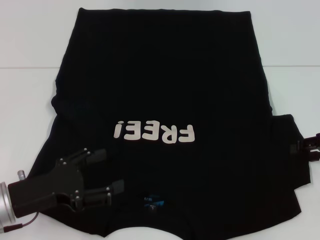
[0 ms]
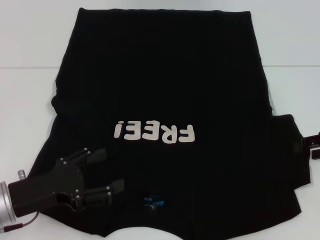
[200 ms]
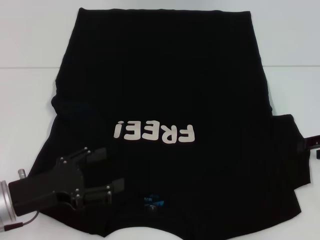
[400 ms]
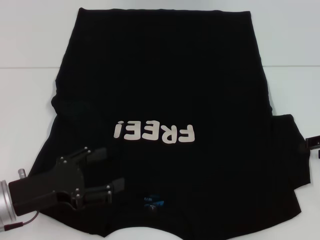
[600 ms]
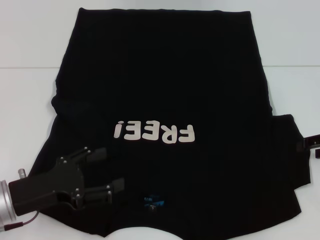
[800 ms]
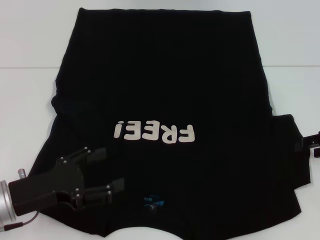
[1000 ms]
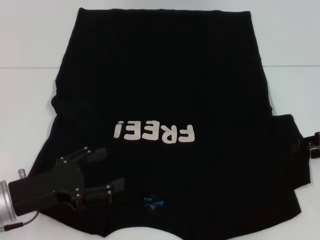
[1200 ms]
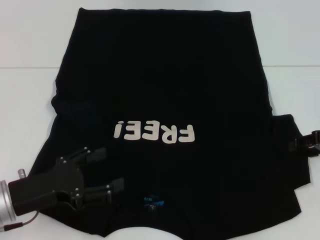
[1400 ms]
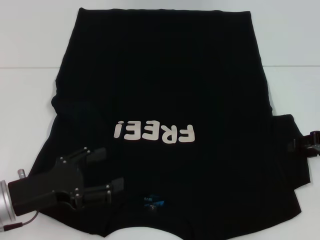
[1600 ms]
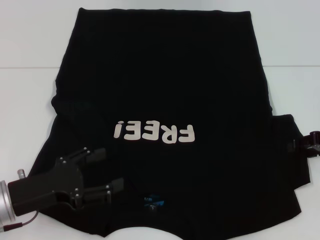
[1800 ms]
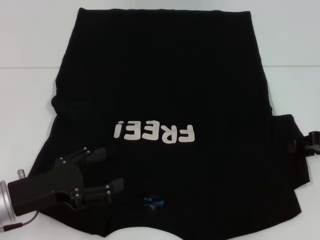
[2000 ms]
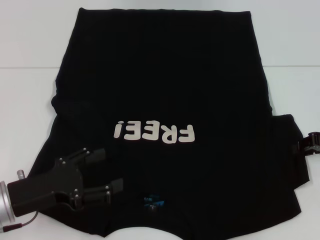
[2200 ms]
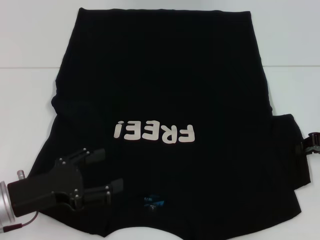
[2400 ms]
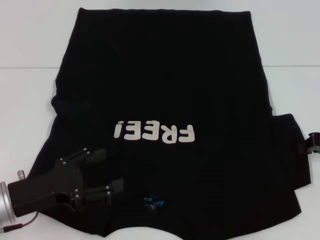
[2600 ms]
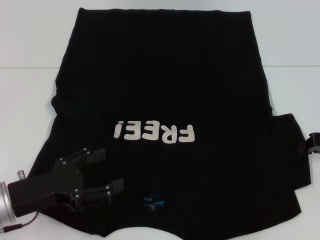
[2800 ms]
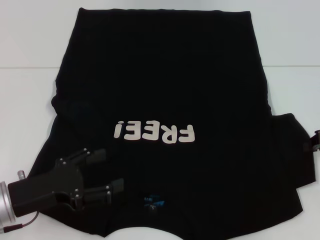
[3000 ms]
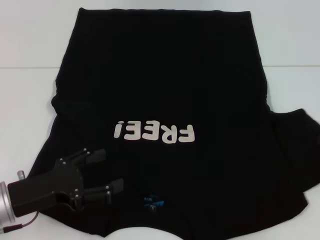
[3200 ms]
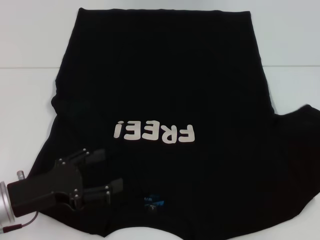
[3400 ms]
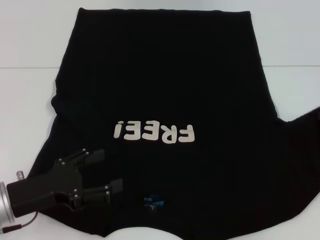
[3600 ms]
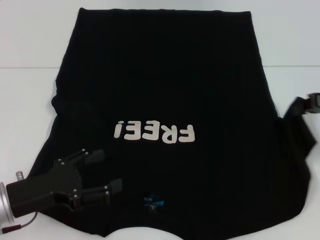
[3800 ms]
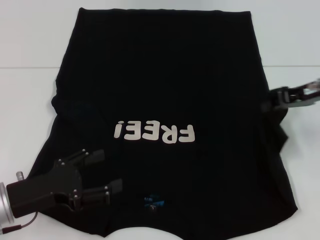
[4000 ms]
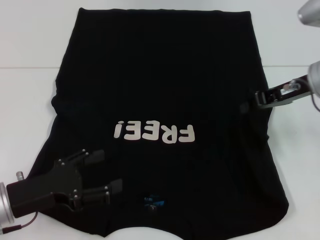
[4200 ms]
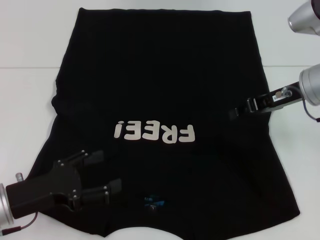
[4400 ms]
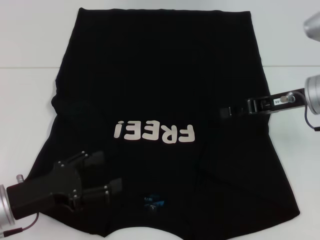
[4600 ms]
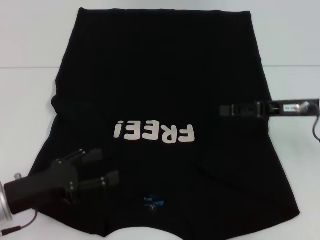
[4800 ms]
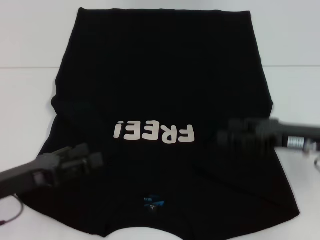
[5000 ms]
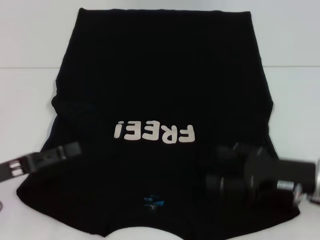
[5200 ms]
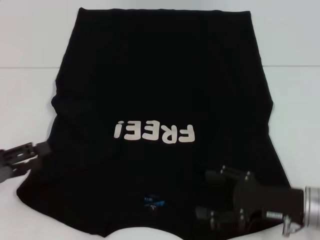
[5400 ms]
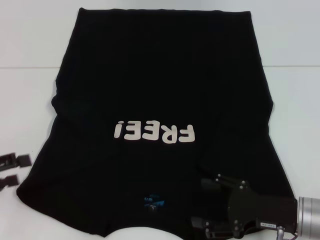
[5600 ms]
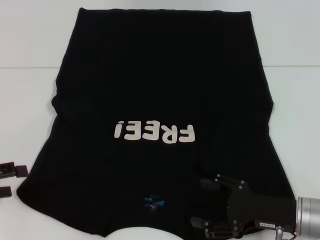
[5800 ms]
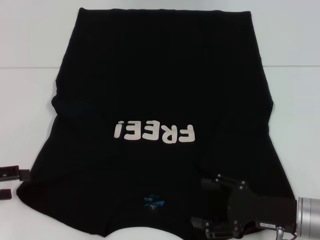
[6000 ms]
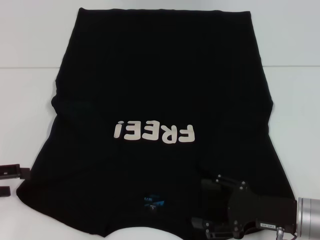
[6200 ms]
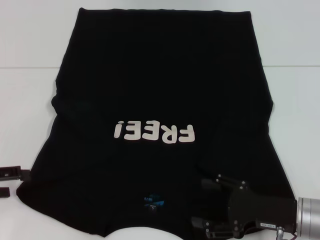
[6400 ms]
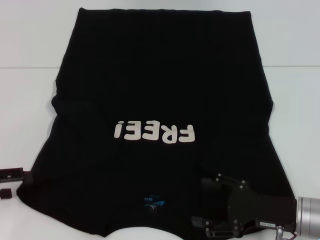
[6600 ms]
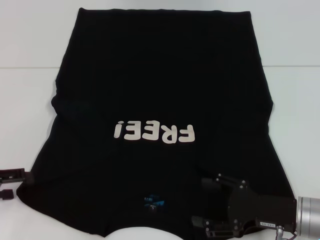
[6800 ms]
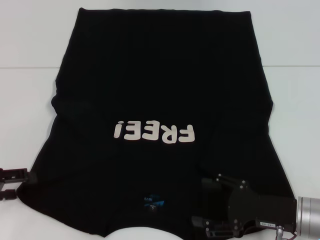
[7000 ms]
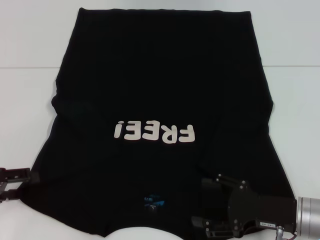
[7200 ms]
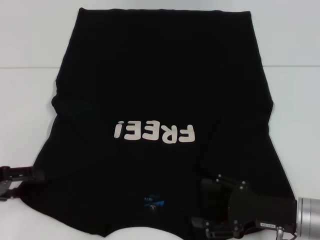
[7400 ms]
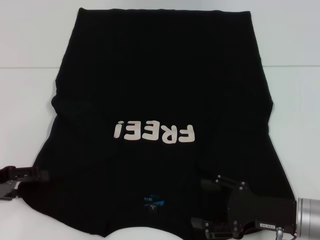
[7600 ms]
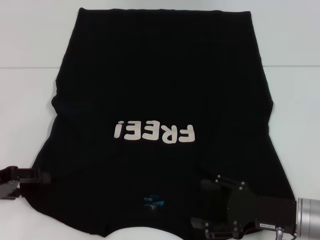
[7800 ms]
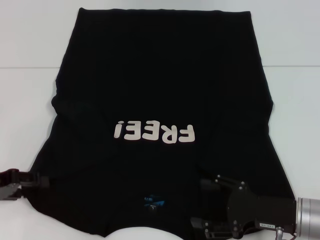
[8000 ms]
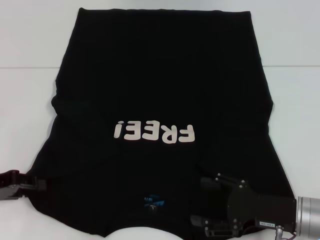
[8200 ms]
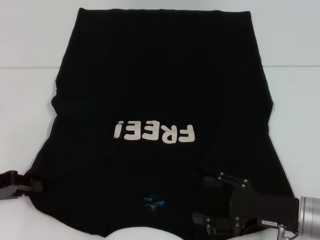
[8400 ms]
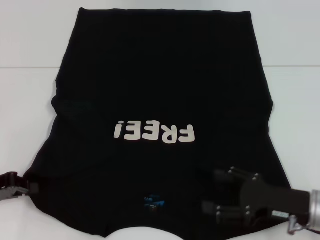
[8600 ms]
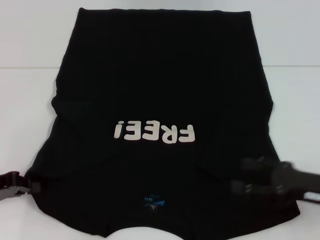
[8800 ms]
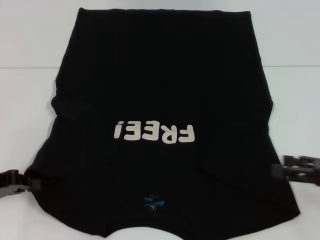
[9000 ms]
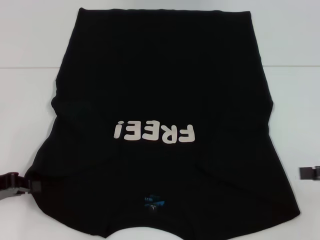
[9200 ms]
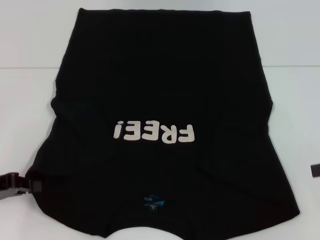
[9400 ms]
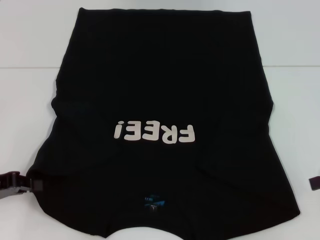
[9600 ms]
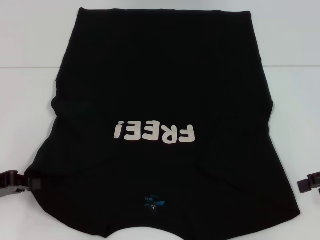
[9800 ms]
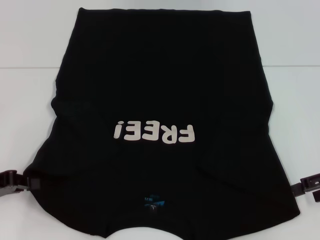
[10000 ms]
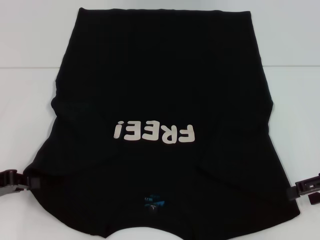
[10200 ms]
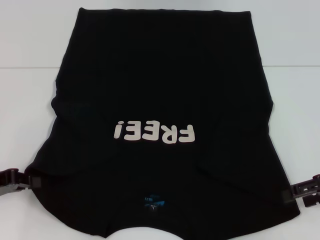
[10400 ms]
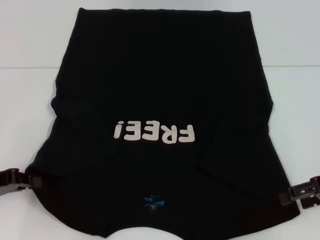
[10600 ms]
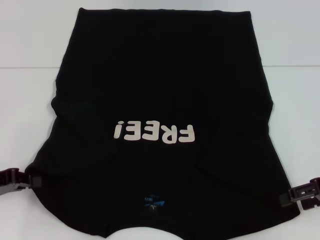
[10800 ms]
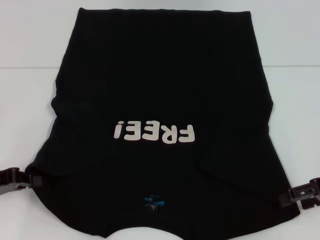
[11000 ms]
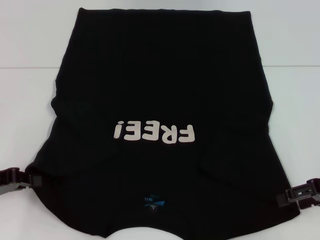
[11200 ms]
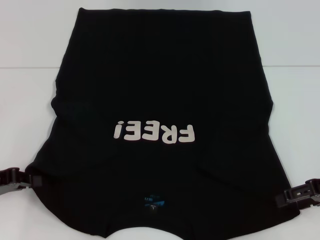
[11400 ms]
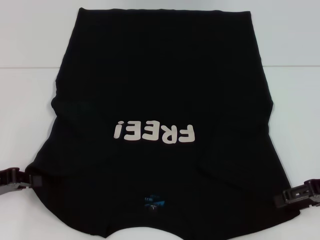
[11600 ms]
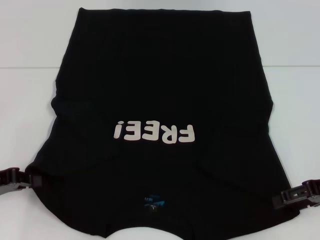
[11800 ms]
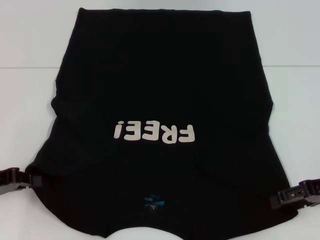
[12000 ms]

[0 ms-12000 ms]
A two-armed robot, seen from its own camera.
Step, 0 ms to 4800 ms: Fold the bottom right sleeve with your right hand.
0 ms to 1600 ms: The grippers make only small movements.
1600 ms to 3000 ms: The right gripper closes.
3000 ms to 4400 ms: The right gripper shifts roughly 10 cm to the left.
4400 ms to 6000 ms: The right gripper is displaced backward and downward by roughly 20 cm, and opens up; the left gripper goes about 10 cm to the left.
6000 ms to 7600 ms: The grippers make only small movements.
7600 ms to 9000 ms: The right gripper goes approximately 15 cm to the right and upward. The left gripper closes up.
9000 ms to 10400 ms: The right gripper moves forward, some 5 cm.
10400 ms to 12000 ms: The grippers make only small movements.

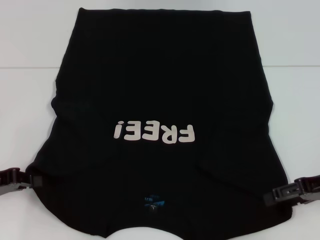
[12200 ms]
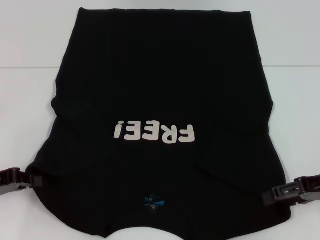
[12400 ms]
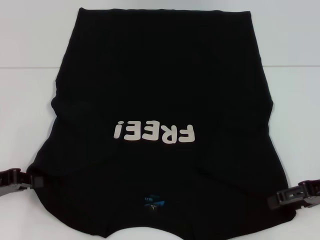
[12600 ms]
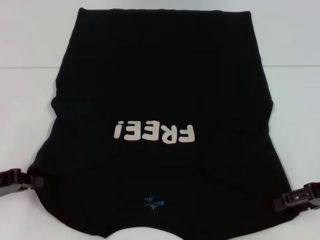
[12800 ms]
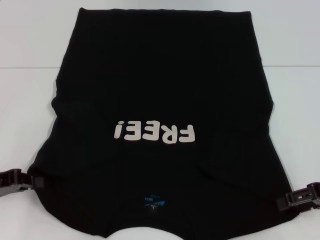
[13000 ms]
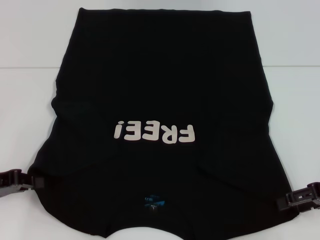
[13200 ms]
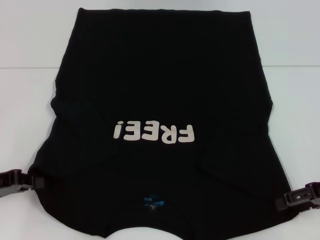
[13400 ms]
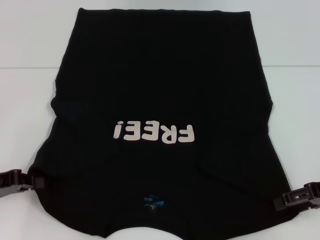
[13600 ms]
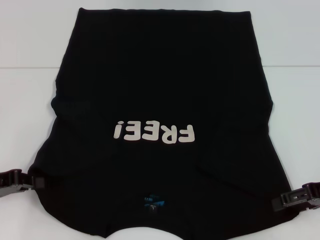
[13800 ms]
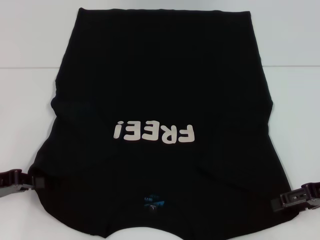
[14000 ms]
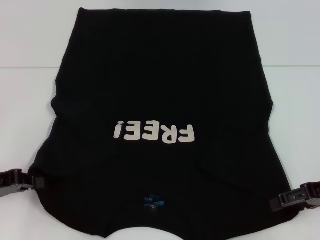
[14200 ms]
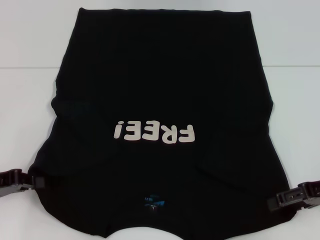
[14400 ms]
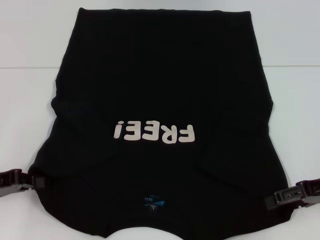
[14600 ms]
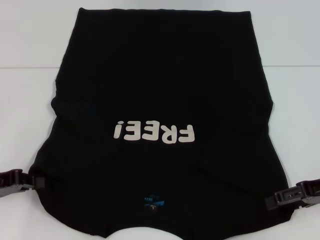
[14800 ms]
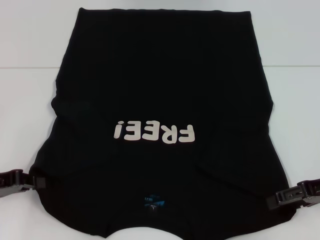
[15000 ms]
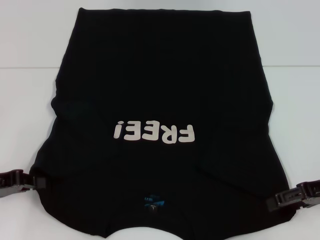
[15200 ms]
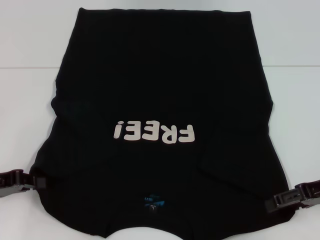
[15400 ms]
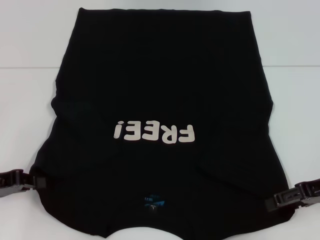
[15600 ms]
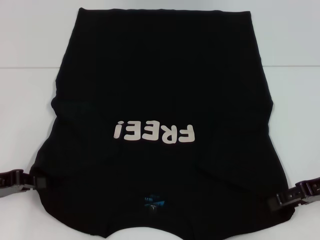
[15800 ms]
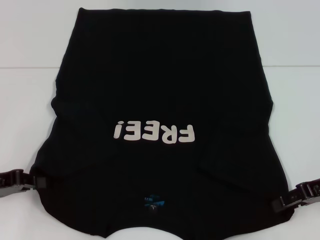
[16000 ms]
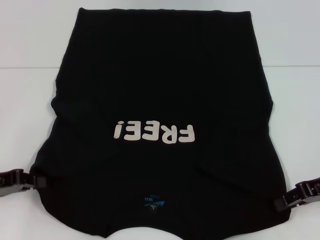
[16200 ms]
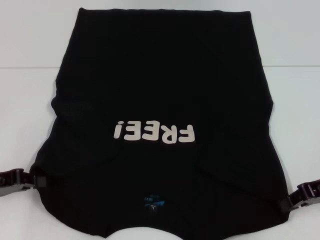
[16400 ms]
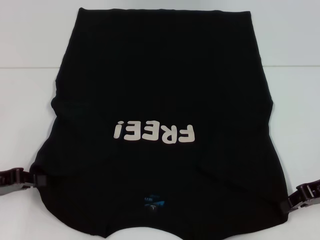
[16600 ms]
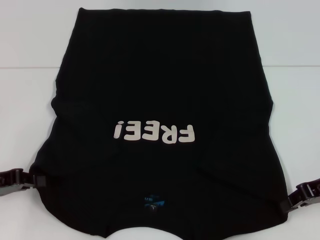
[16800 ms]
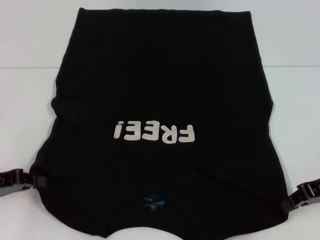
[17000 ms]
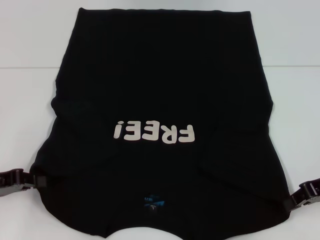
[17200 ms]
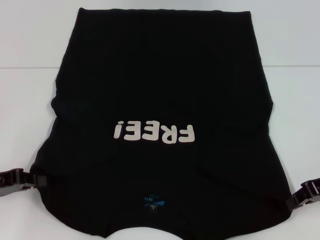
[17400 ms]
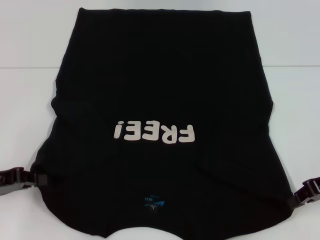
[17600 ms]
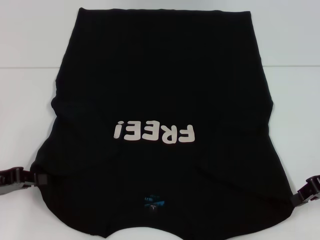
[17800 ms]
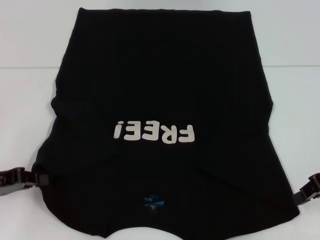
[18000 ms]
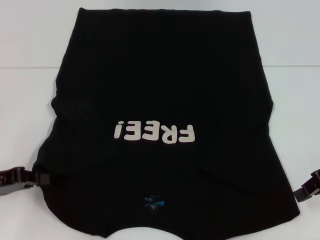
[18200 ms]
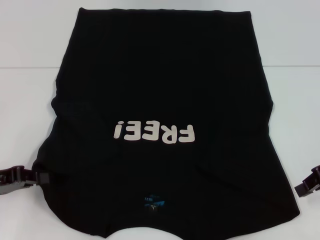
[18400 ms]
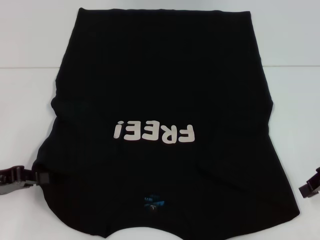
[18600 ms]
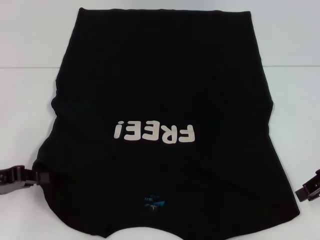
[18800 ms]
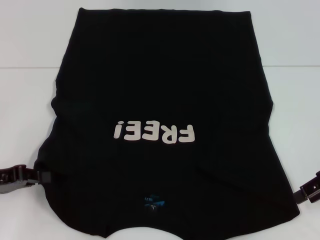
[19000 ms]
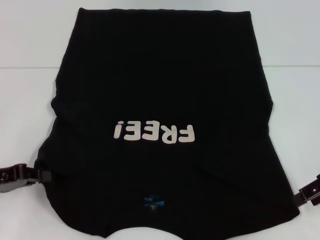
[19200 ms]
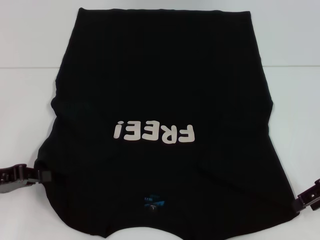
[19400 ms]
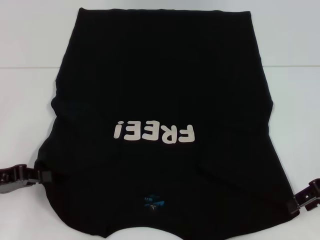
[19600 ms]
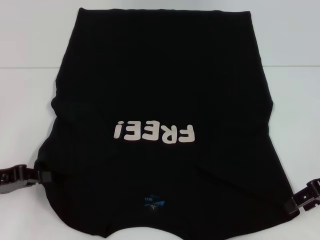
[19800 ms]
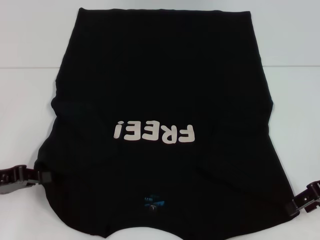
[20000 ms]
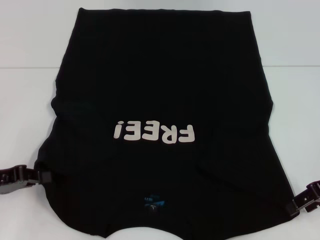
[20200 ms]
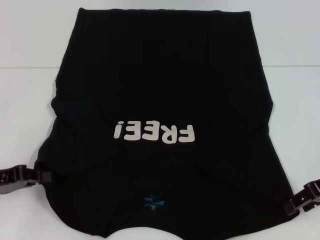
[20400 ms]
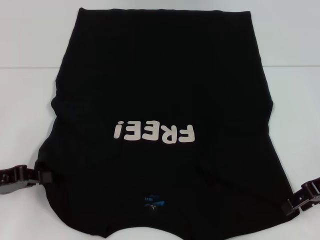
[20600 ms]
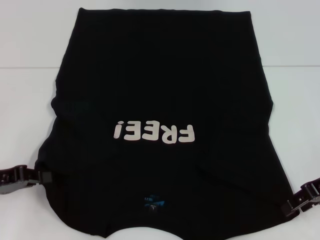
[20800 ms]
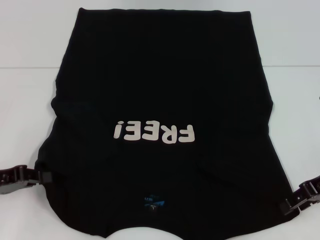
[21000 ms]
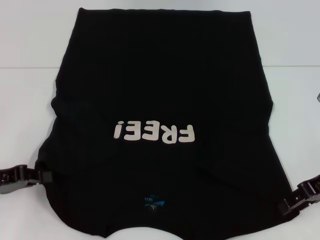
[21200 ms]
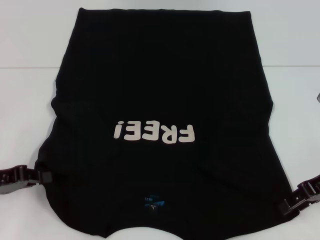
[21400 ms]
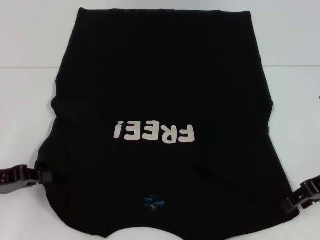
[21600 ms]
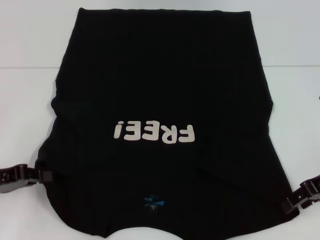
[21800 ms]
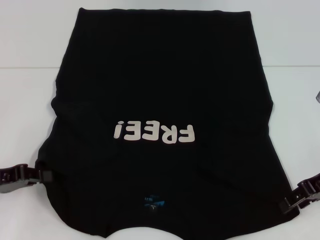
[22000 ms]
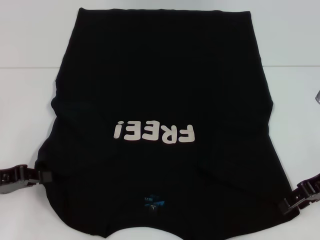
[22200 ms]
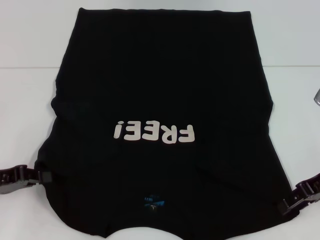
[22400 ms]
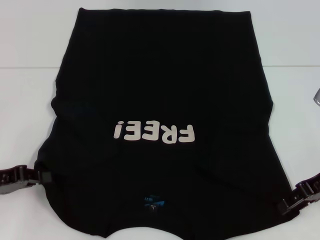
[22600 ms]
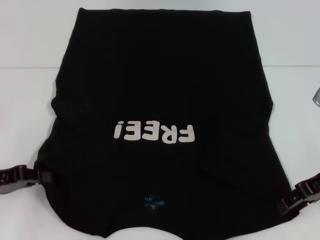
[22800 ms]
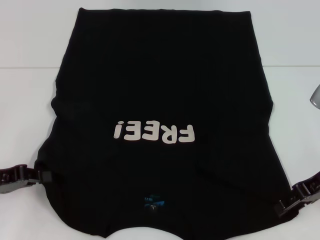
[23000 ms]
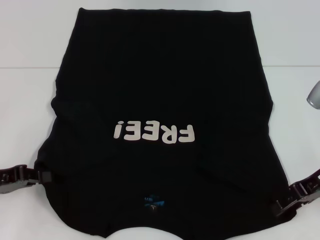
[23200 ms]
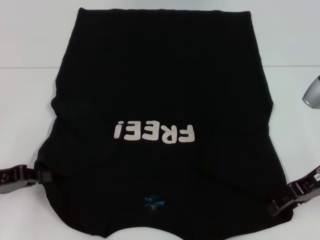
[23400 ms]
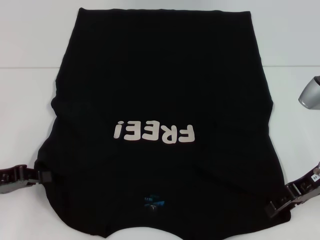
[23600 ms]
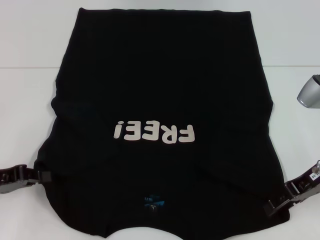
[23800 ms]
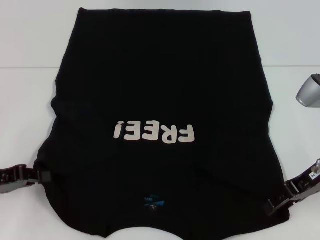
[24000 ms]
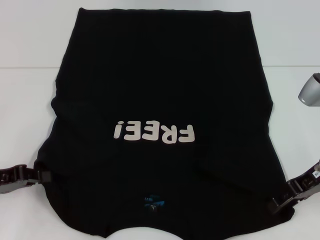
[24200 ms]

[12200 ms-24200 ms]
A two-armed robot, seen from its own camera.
12200 ms to 13800 ms: The grippers stay close to where they were, moving slightly.
13800 ms to 15200 ms: Both grippers stay put.
15200 ms to 16600 ms: The right gripper closes up.
16600 ms to 18200 ms: The grippers stay close to where they were, moving slightly.
18200 ms to 19800 ms: The right gripper opens up.
21200 ms to 22600 ms: Neither gripper changes place.
22600 ms to 24200 ms: The grippers make only small movements.
